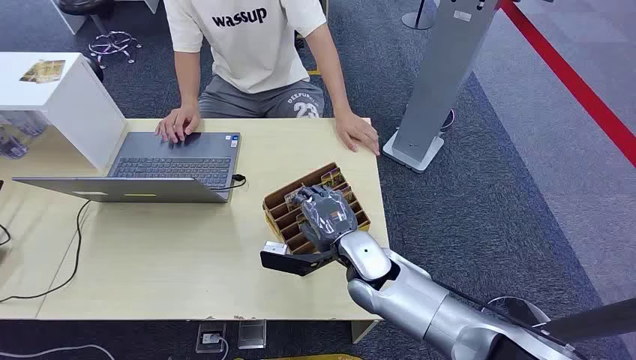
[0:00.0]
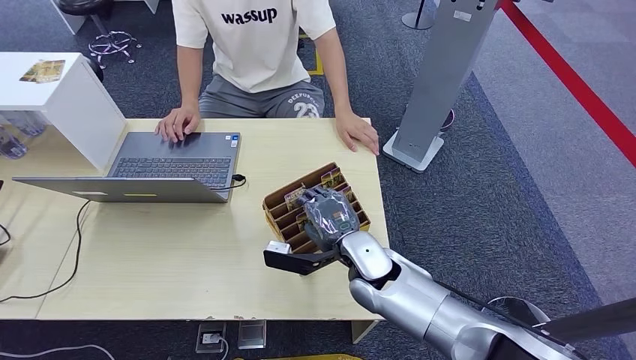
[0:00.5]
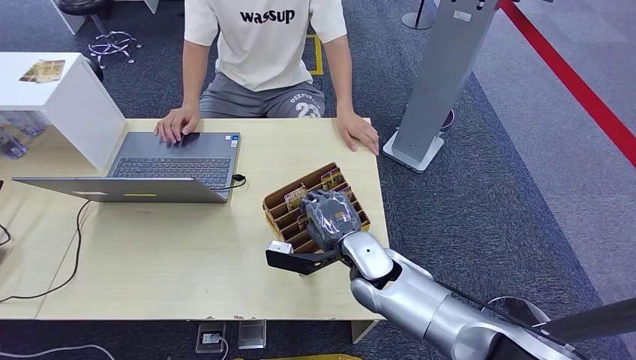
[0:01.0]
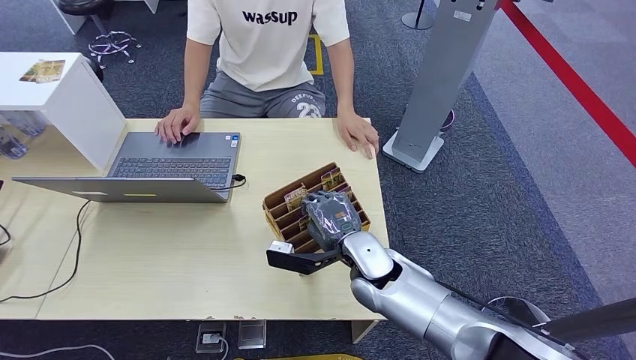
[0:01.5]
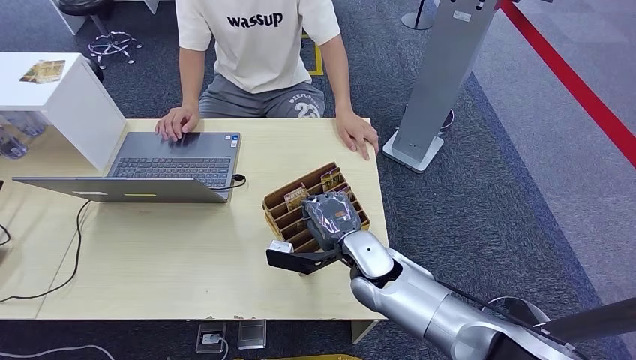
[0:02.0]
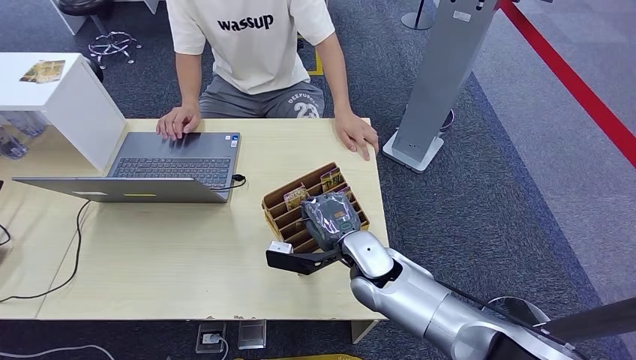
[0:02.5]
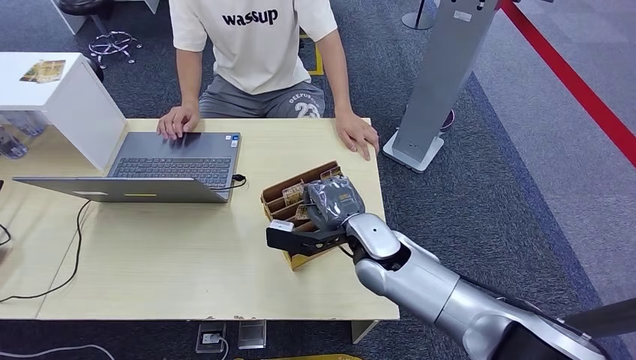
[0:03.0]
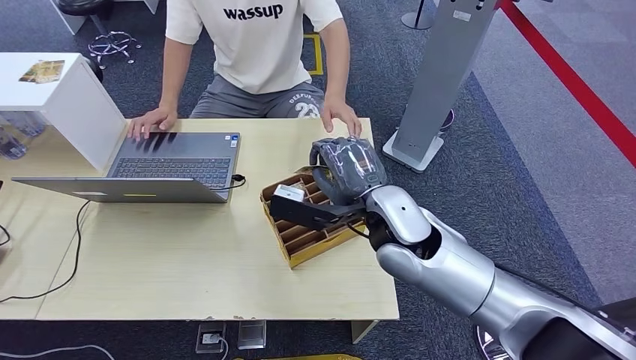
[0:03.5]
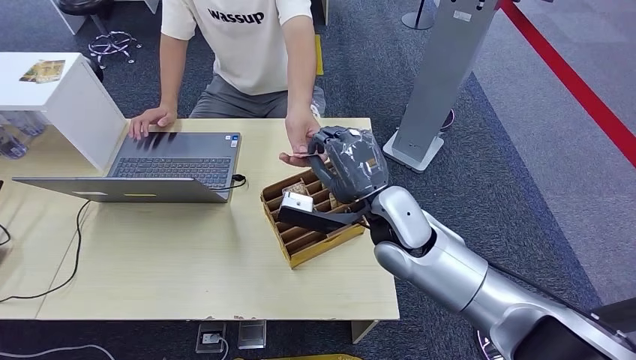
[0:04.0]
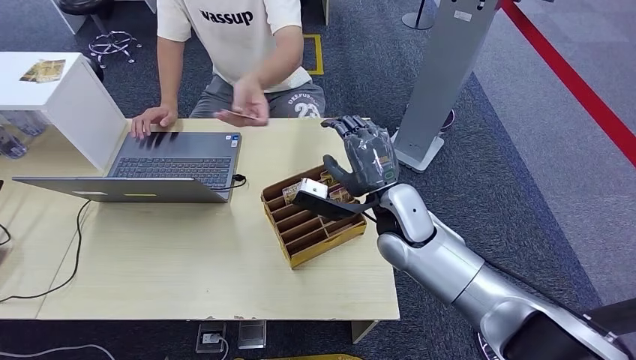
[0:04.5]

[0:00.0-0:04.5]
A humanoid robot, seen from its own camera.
Step, 0:00.0 to 0:03.0: Pick up the key card from the card box.
Step, 0:03.5 to 0:04.5: Hand the key card to the target.
